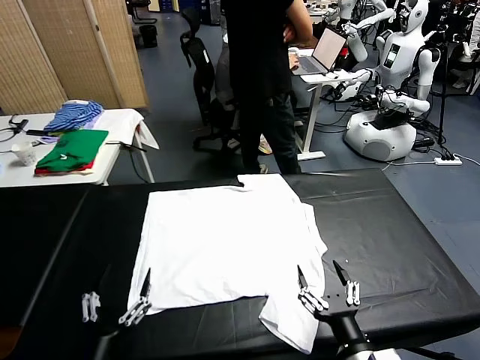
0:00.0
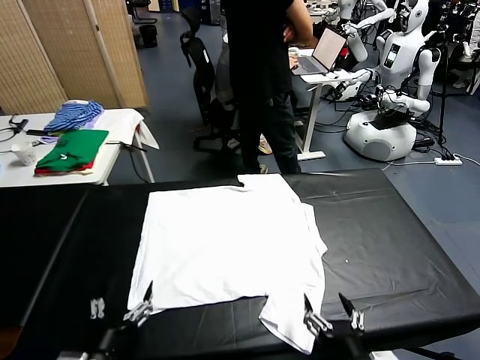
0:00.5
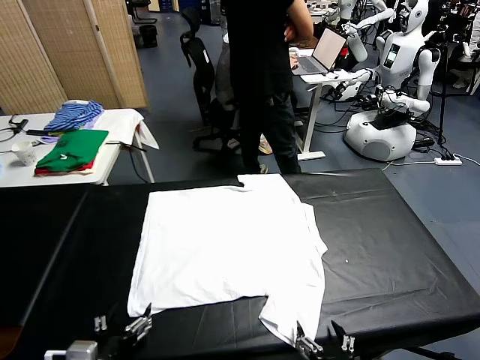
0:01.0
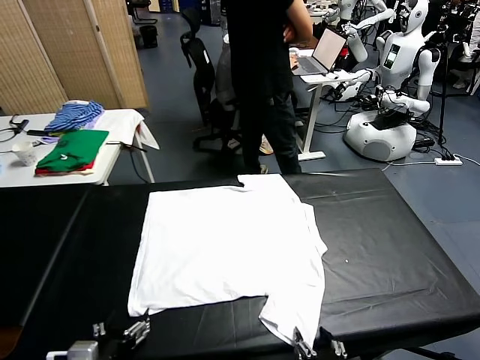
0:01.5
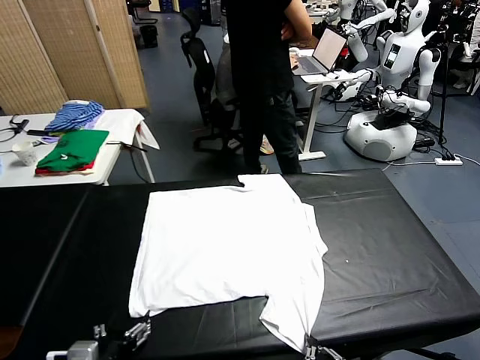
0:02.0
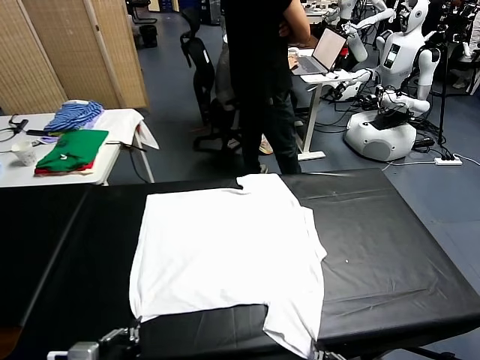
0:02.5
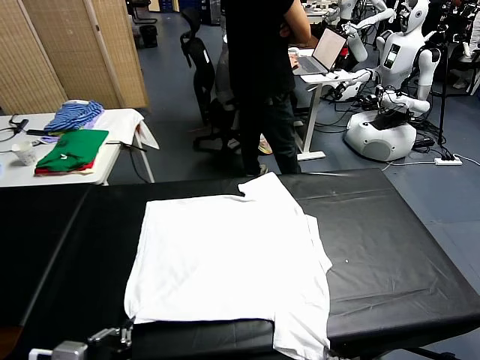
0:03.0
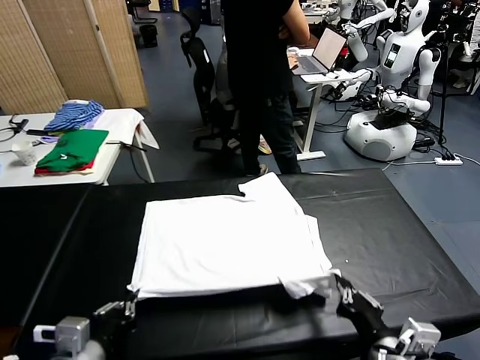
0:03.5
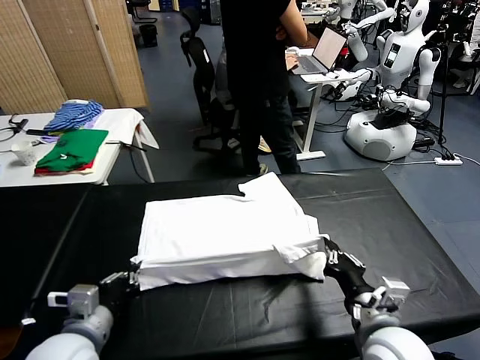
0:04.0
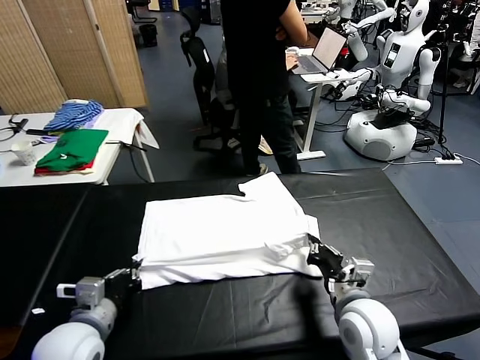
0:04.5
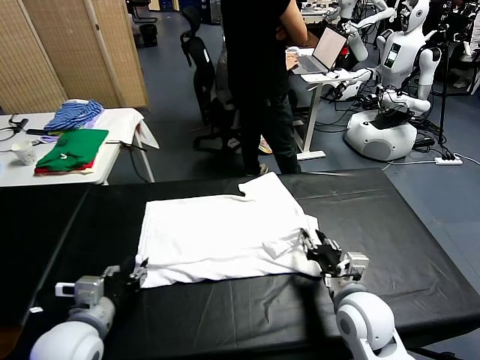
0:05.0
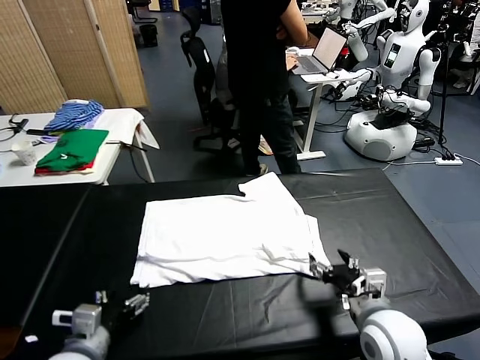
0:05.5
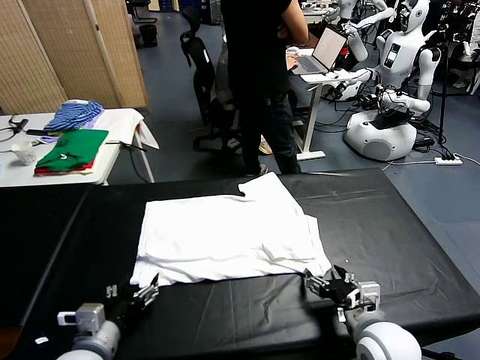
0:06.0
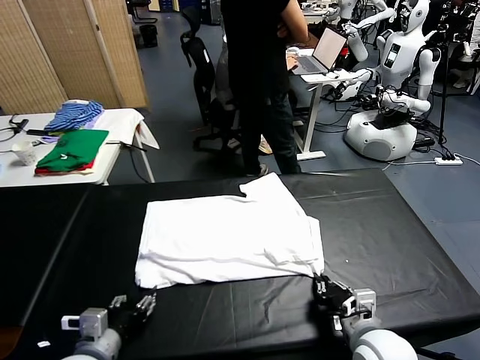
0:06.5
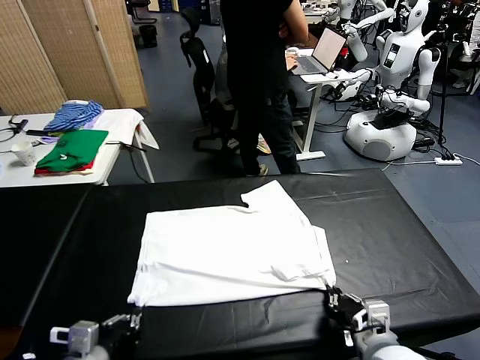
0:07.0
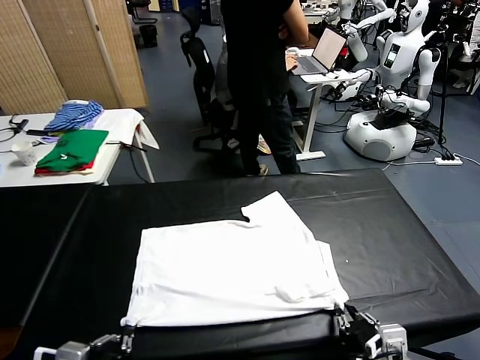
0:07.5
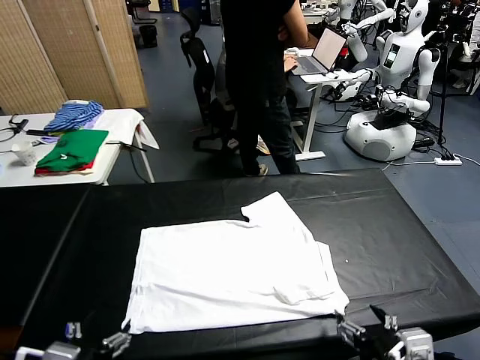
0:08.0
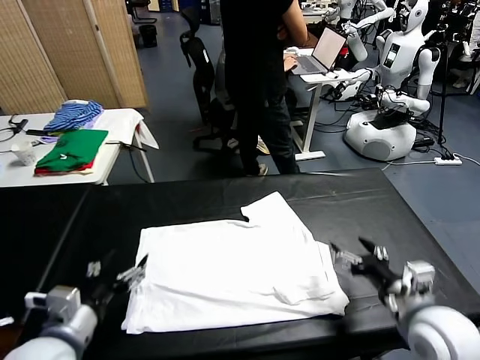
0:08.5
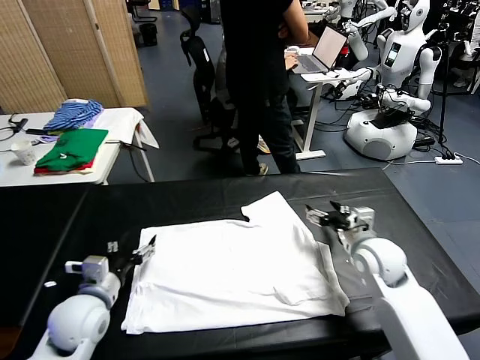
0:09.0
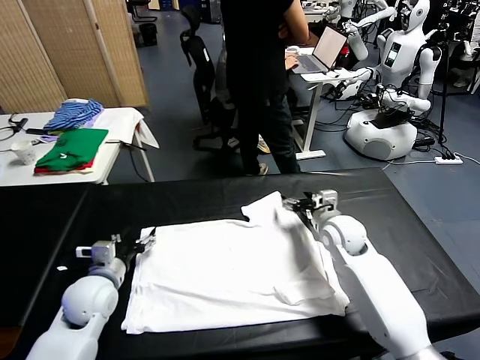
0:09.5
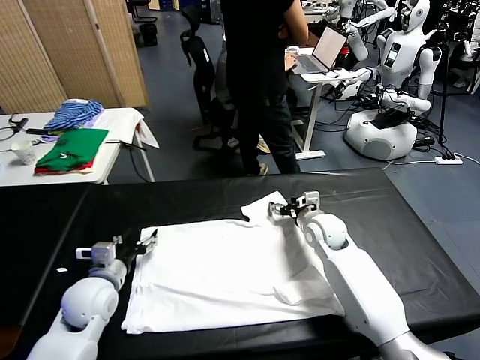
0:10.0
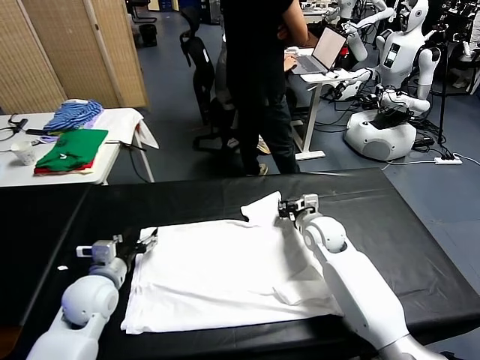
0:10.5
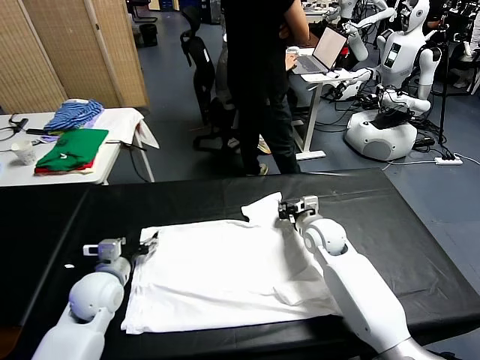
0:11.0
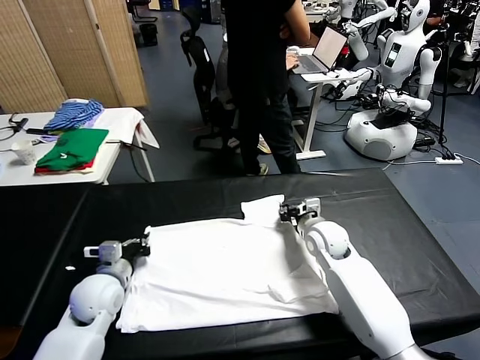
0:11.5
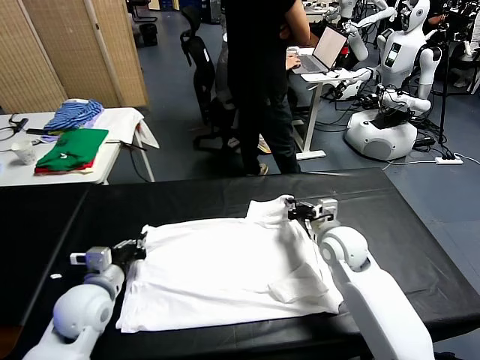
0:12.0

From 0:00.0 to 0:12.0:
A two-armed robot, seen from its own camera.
Task of the whole recording: fold and organize the clothes.
Step, from 0:00.0 to 0:03.0: use both grippers simultaneously to clamp the lower edge of the clothing fabric.
Step, from 0:03.5 to 0:05.5: use both grippers to drag the lower edge of the fabric forward and fold it over the upper edge.
Step, from 0:06.0 to 0:08.0: Drag the clothes downward with both gripper.
Step, from 0:08.5 to 0:11.5: use both grippers simultaneously to clamp the upper edge of the clothing fabric.
From 0:02.0 to 0:04.0: The left gripper goes roughly 10 cm forward, and closes its fingers, while the right gripper heads forward, covering approximately 15 cm.
From 0:04.0 to 0:06.0: The right gripper opens. Meanwhile the left gripper is displaced downward by roughly 5 cm, and opens up.
From 0:06.0 to 0:08.0: The right gripper goes about 10 cm upward and to the right, and opens its fingers. Meanwhile the left gripper moves upward and backward, about 10 cm, and closes, then opens again.
From 0:08.0 to 0:10.0: The left gripper is displaced forward and downward by about 25 cm, while the right gripper heads forward, covering about 30 cm, and closes up.
From 0:10.0 to 0:12.0: The right gripper goes roughly 15 cm backward and upward, and closes; the left gripper shifts by about 5 cm, and closes.

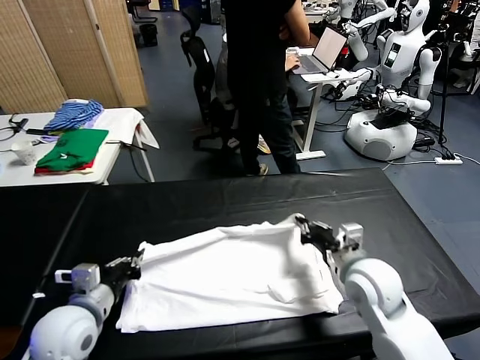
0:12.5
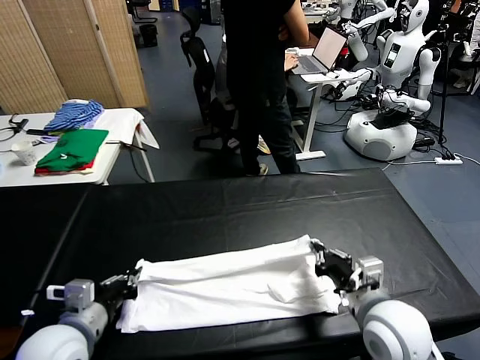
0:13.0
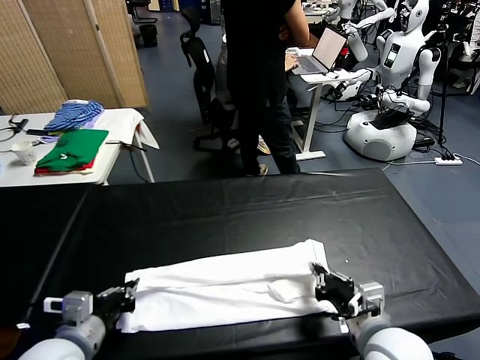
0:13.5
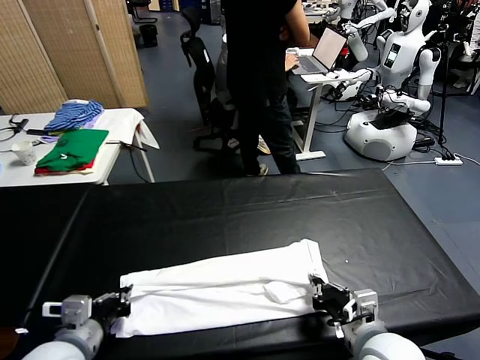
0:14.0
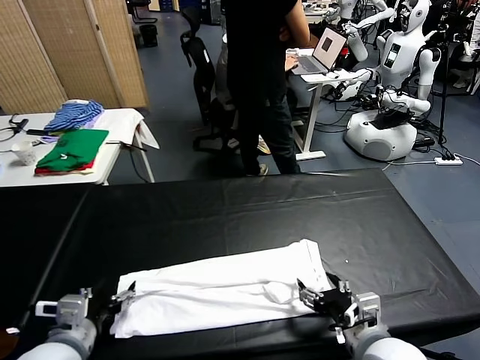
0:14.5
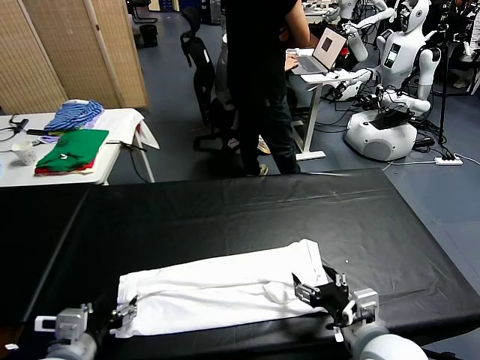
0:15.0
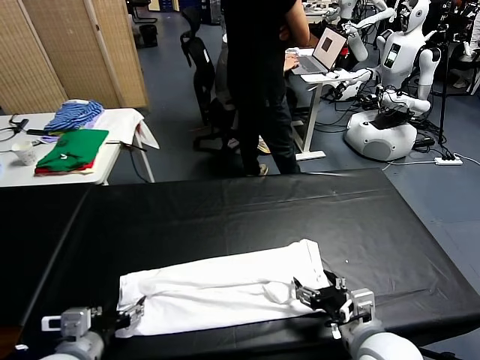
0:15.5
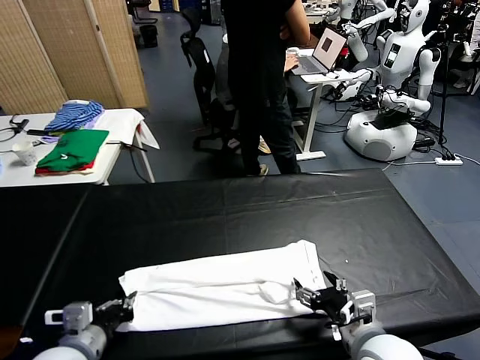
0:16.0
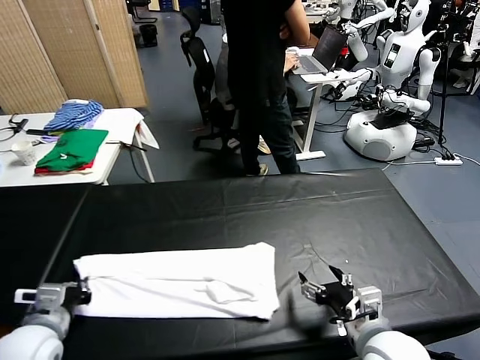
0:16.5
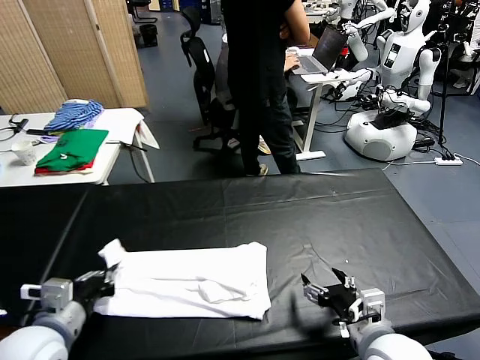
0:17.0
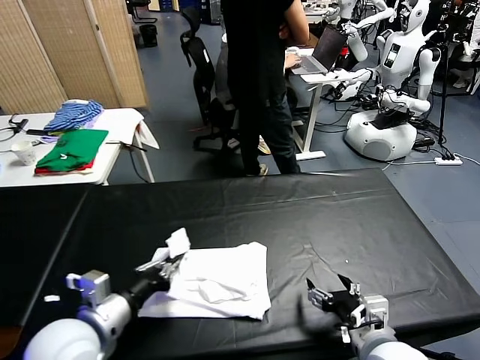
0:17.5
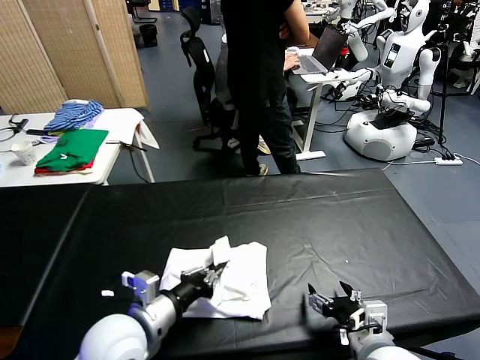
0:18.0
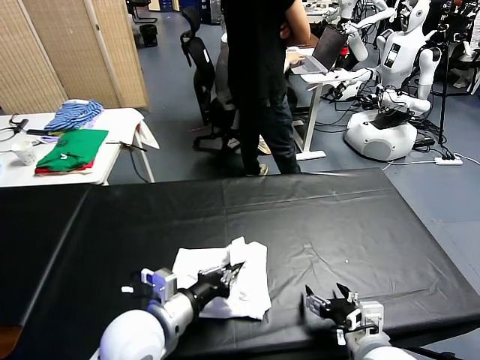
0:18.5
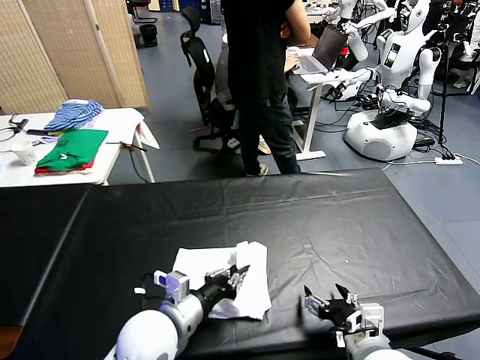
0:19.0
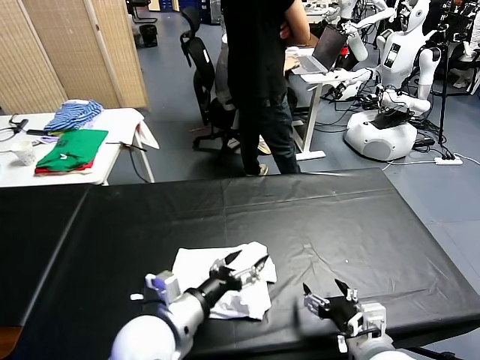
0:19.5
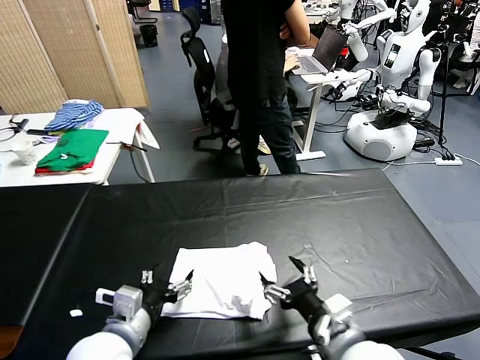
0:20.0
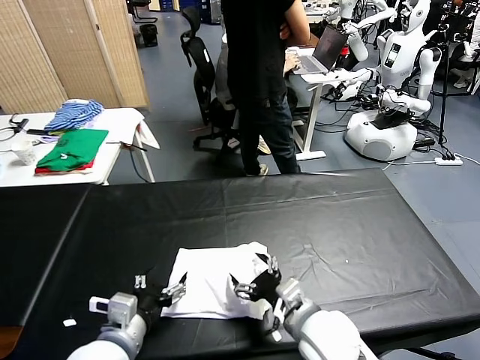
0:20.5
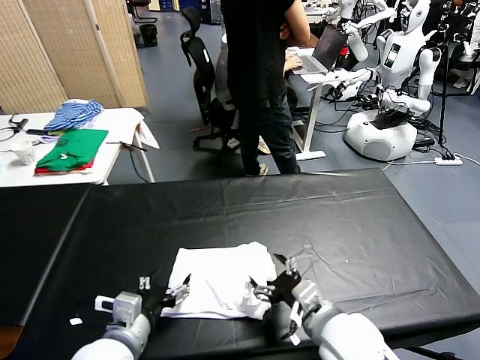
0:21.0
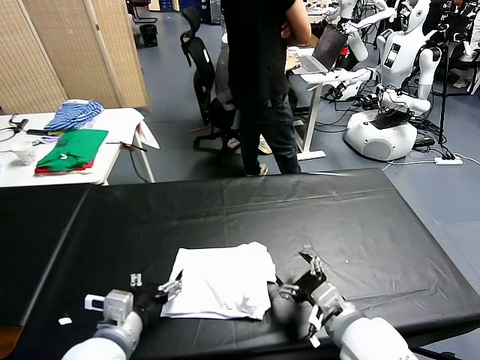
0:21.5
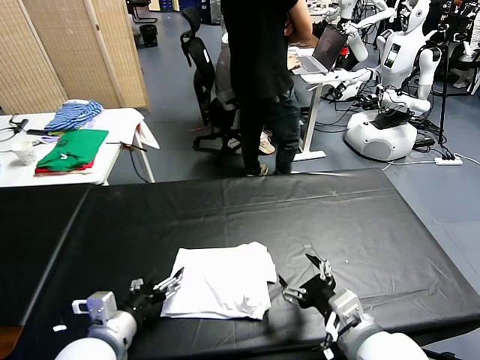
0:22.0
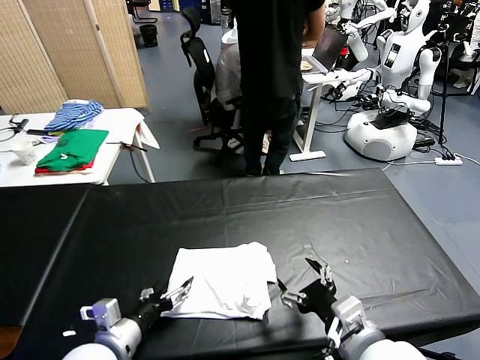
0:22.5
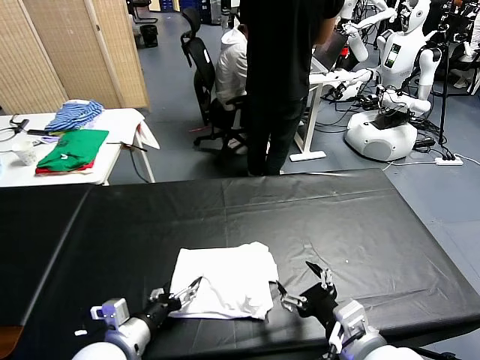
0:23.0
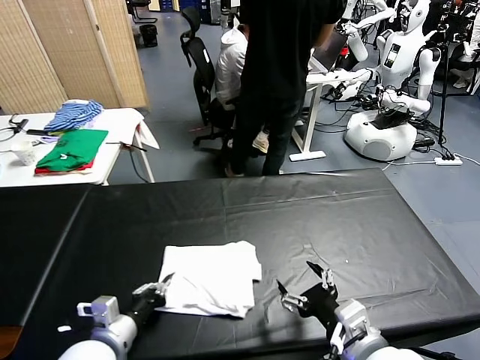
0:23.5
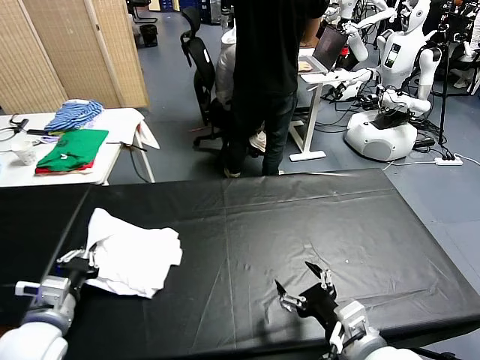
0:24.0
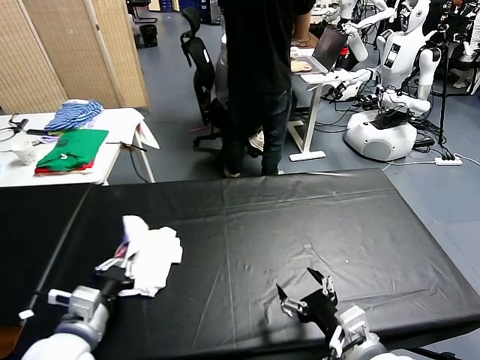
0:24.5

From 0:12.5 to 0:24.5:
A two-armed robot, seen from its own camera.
Task of the whole recording: fold and organize the clothes.
Step, from 0:12.5 to 0:14.5: use both grippers to drag the upper edge of the fabric backward and fold it over the lower edge.
Step, from 0:15.0 to 0:16.0: use the left gripper to clamp the left edge of the fabric.
Step, from 0:16.5 to 0:19.0: use the left gripper to drag the left edge of the fabric to the left and folds it over the right edge.
From 0:12.5 to 0:14.5: The right gripper shifts about 10 cm backward, and opens up, while the left gripper travels backward by some 5 cm, and opens up.
From 0:14.5 to 0:16.5: The left gripper heads to the left, covering approximately 5 cm, and closes its fingers.
From 0:16.5 to 0:18.5: The left gripper heads to the right, covering roughly 20 cm.
From 0:18.5 to 0:20.5: The left gripper shifts about 5 cm to the left, and opens; the right gripper is displaced to the left and forward by roughly 10 cm.
From 0:20.5 to 0:22.5: The left gripper ends up some 5 cm from where it was. Meanwhile the right gripper heads backward, to the right and upward, covering about 10 cm.
From 0:22.5 to 0:24.5: The left gripper is displaced upward by roughly 5 cm, and closes.

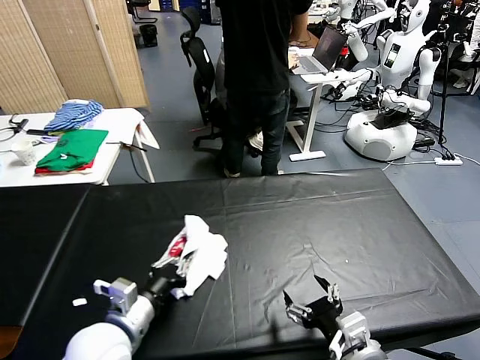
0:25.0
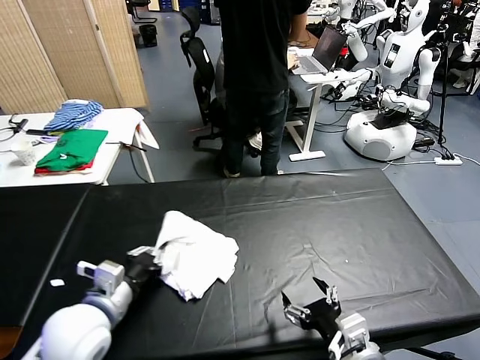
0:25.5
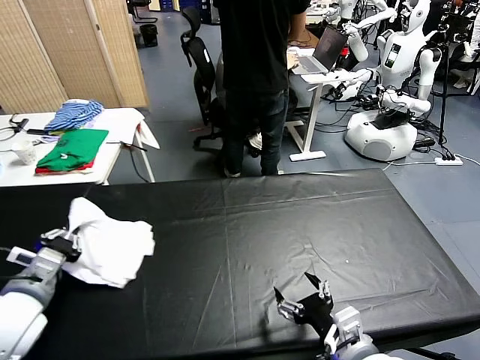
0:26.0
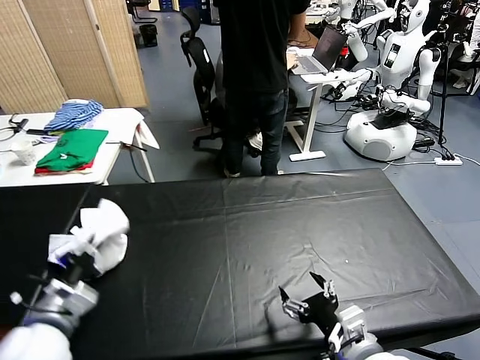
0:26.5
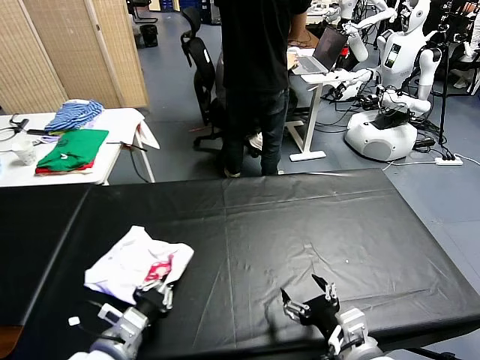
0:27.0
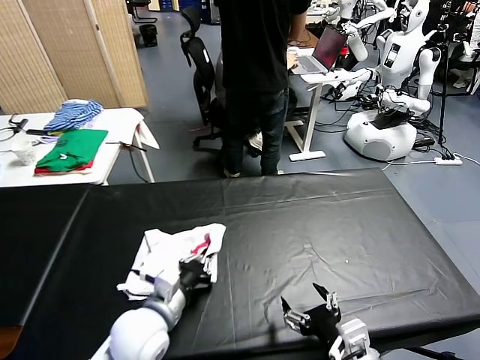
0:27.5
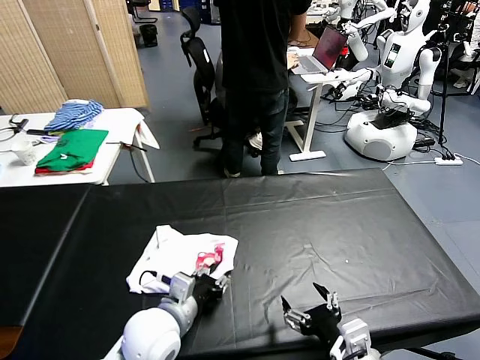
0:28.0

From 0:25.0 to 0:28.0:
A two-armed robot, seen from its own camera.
Task of the whole recording: fold and organize the clothes.
From 0:25.0 to 0:26.5: The left gripper moves backward, about 5 cm, and goes to the left and returns, approximately 15 cm each way.
From 0:26.5 to 0:28.0: The left gripper goes approximately 15 cm to the right and forward, and opens.
